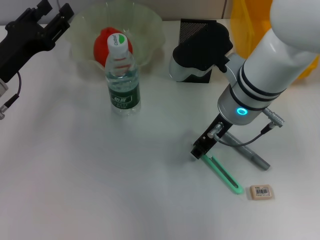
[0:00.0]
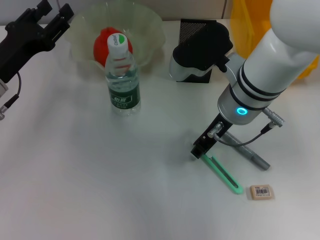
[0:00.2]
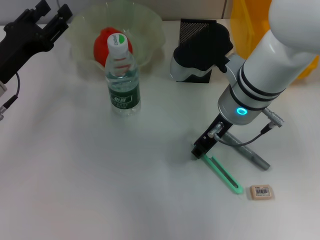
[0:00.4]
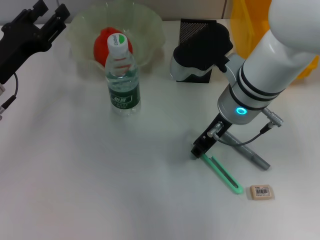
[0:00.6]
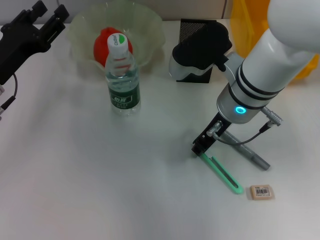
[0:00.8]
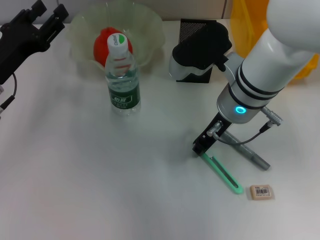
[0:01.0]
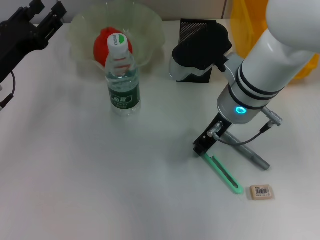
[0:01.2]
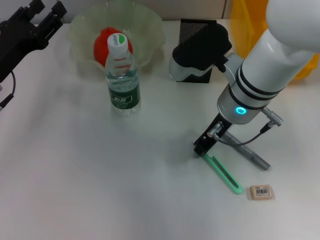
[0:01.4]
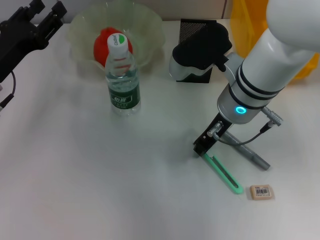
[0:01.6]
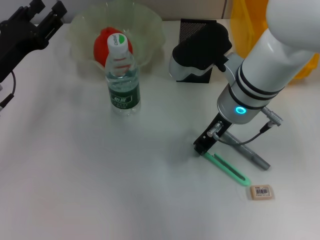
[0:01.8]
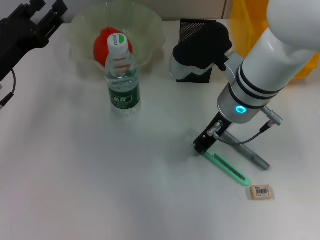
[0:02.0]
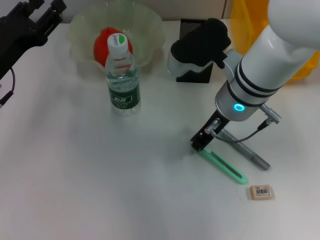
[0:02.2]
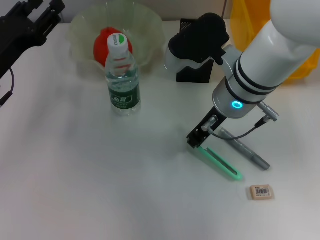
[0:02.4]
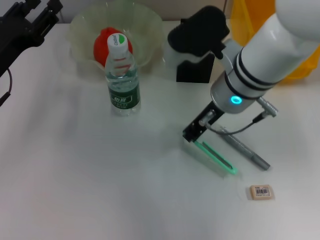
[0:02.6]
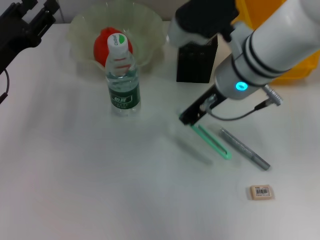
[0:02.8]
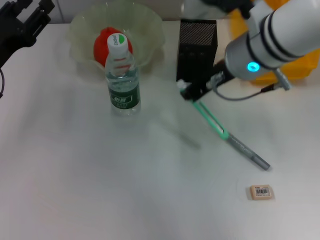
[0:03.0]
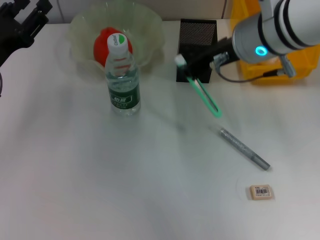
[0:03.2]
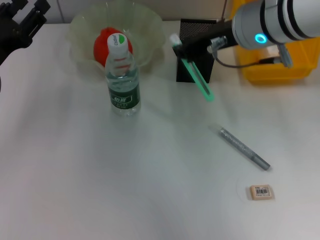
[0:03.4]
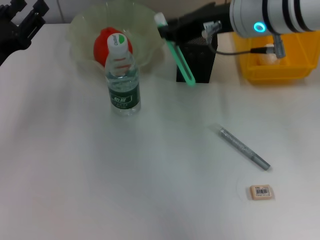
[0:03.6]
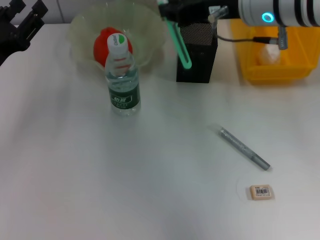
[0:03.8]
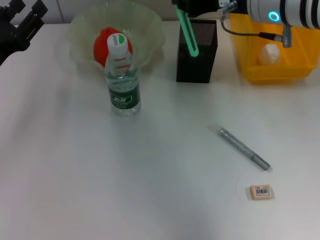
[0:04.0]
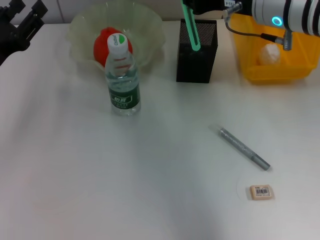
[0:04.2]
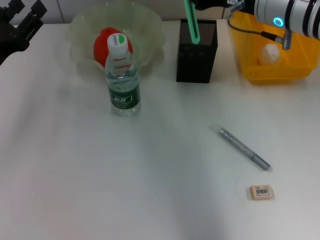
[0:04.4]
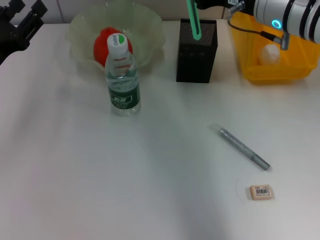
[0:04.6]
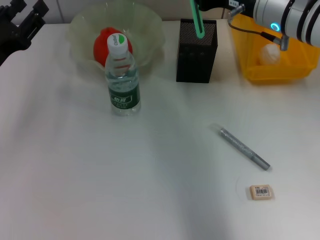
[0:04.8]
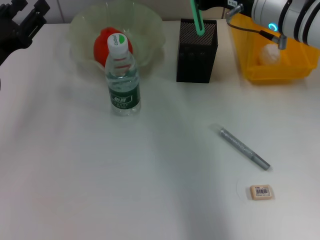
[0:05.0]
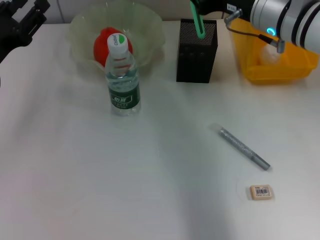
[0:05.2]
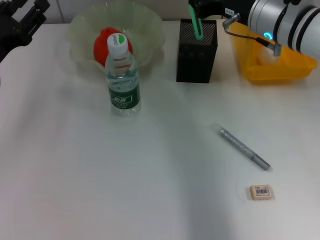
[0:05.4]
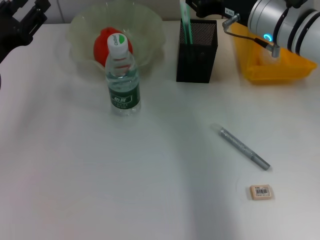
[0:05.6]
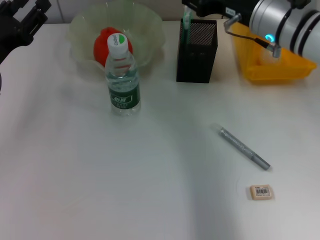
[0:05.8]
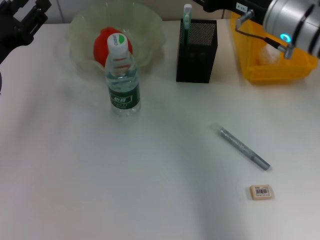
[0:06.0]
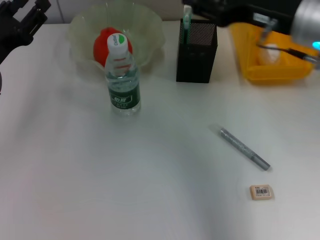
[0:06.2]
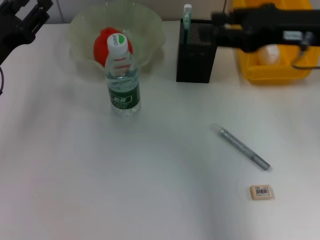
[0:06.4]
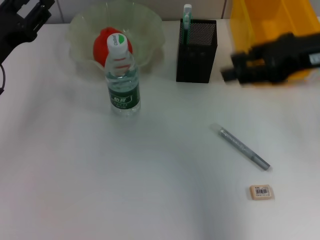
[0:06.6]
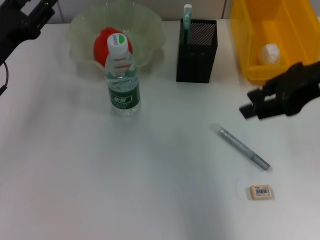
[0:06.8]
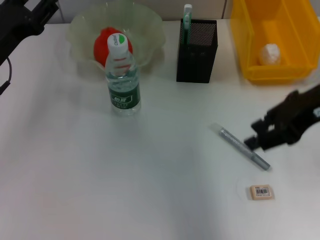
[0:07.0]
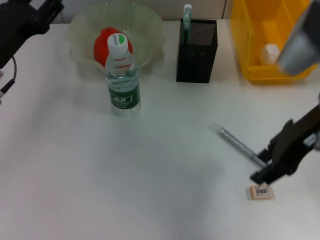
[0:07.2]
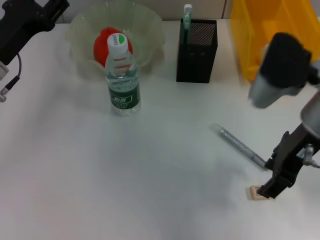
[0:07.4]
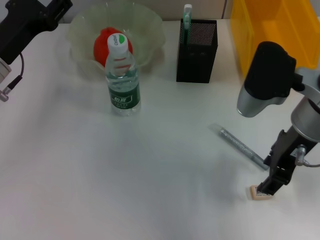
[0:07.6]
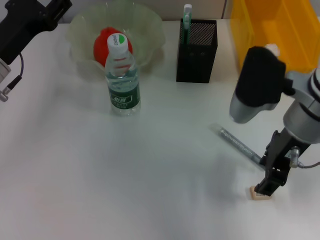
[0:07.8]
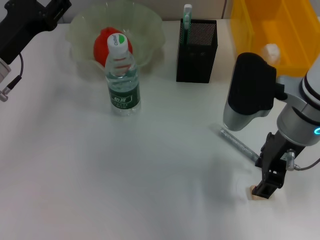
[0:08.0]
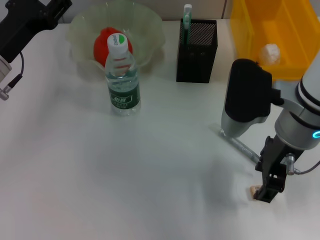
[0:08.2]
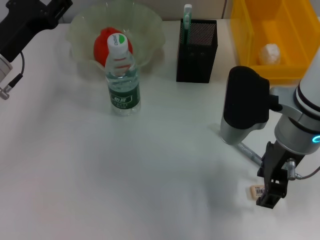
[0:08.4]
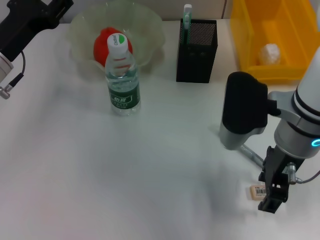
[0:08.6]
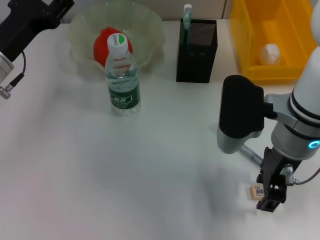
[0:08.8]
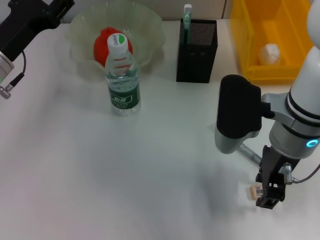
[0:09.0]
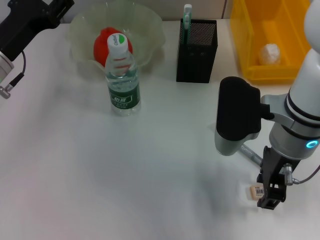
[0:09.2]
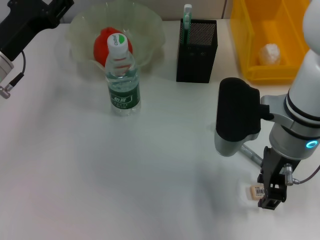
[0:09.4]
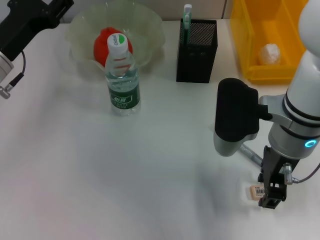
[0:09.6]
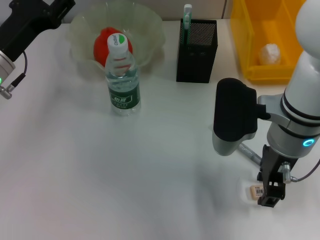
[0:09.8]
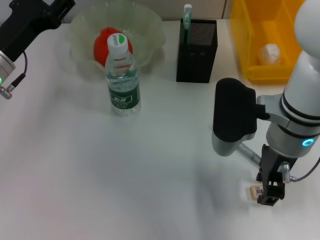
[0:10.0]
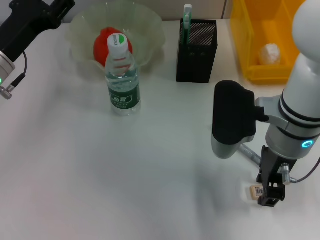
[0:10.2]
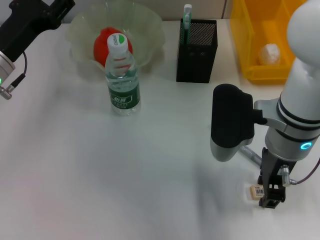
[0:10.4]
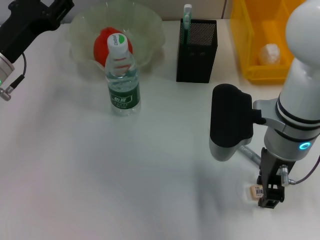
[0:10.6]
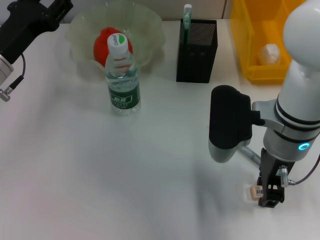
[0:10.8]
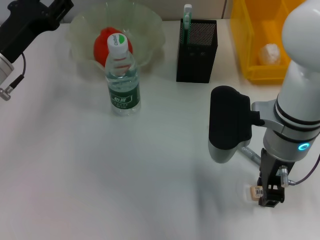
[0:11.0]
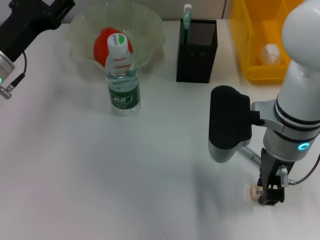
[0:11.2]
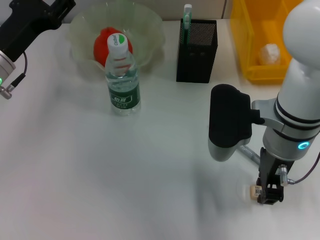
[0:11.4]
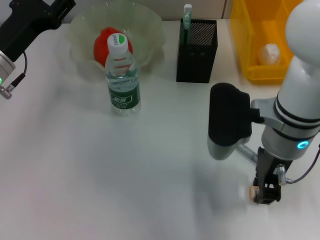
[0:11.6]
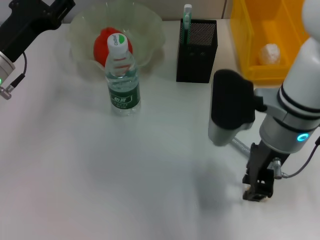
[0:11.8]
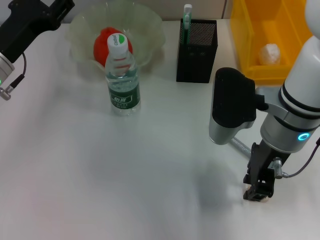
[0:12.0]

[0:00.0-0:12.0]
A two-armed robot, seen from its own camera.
Step, 0:00.0 to 0:02.2: Grab the blue utility knife with the right hand.
Step, 0:02.4 to 0:05.8: Place the blue utility knife into the pen holder with the right hand.
0:00.0 to 0:01.6: The right gripper closes up.
0:01.6 to 0:03.0: The right gripper heads upward, covering about 5 cm.
0:03.0 to 0:04.4: The right gripper travels to the right by roughly 5 cm.
0:04.4 to 0:06.0: The right gripper opens up.
0:06.0 to 0:07.6: The right gripper heads backward, covering approximately 5 cm.
0:07.6 to 0:09.0: The grippers make only small movements.
0:09.0 to 0:10.4: Both grippers stay put.
0:10.4 to 0:12.0: The grippers move only a little.

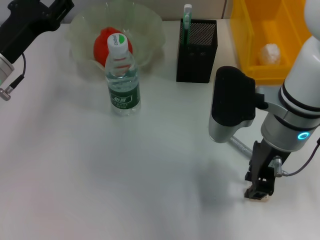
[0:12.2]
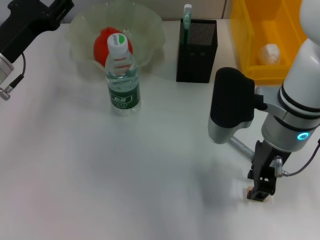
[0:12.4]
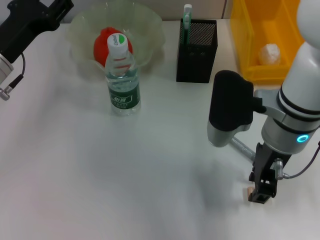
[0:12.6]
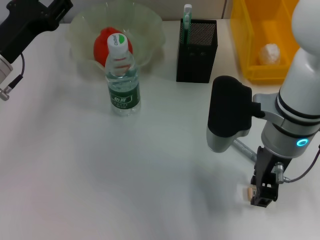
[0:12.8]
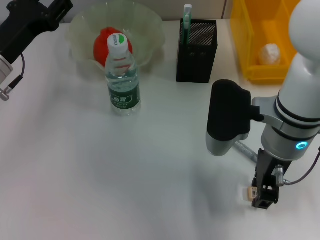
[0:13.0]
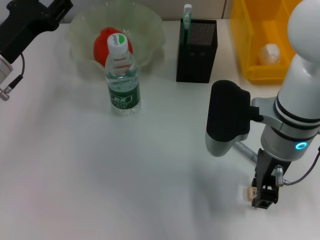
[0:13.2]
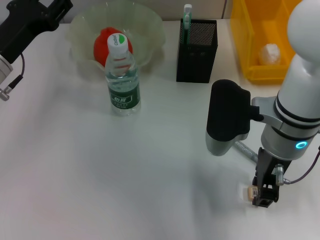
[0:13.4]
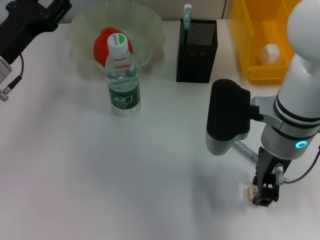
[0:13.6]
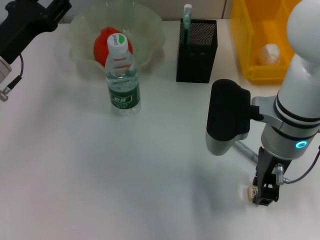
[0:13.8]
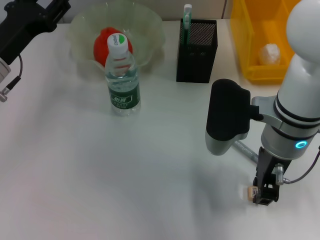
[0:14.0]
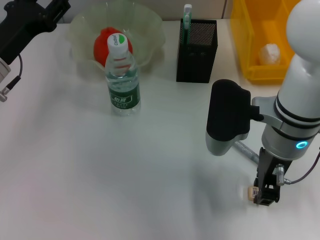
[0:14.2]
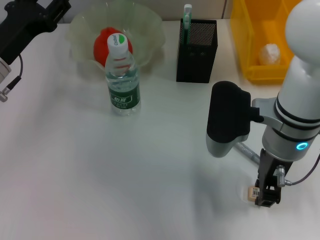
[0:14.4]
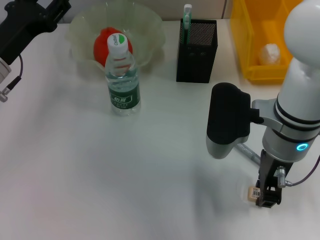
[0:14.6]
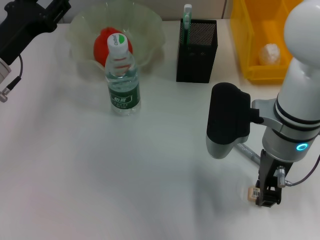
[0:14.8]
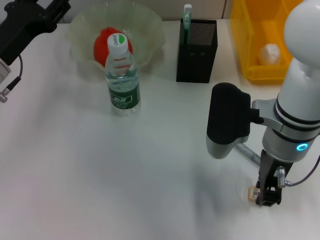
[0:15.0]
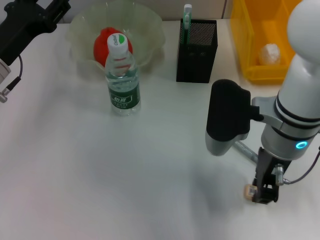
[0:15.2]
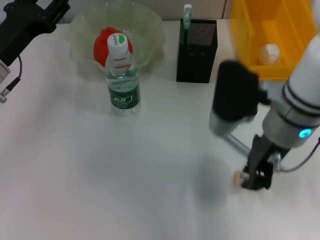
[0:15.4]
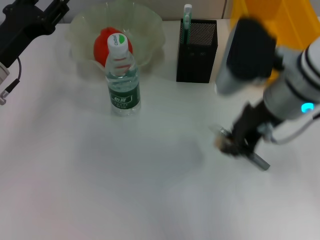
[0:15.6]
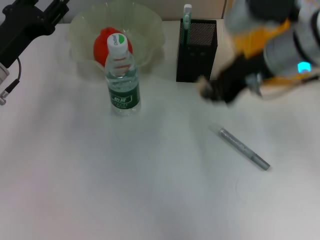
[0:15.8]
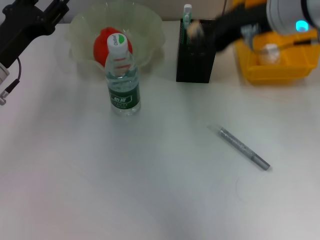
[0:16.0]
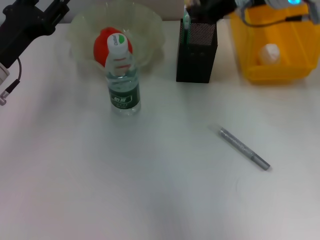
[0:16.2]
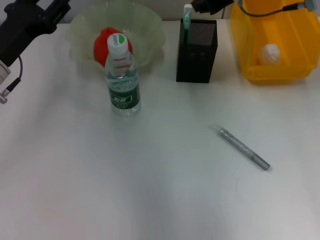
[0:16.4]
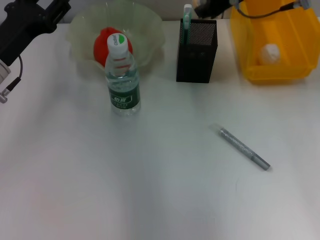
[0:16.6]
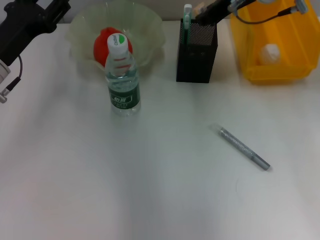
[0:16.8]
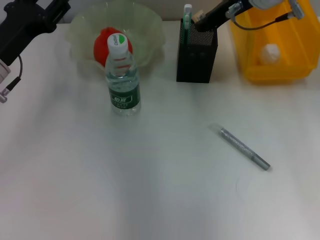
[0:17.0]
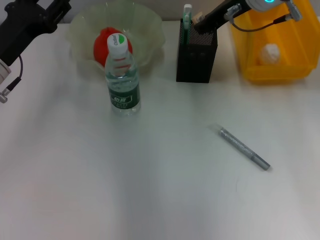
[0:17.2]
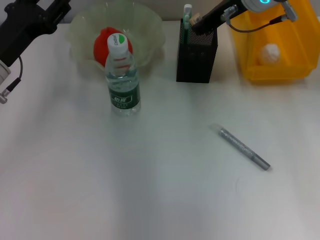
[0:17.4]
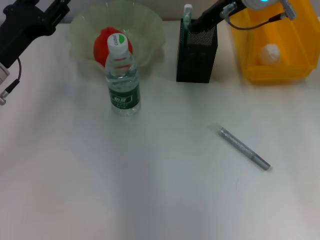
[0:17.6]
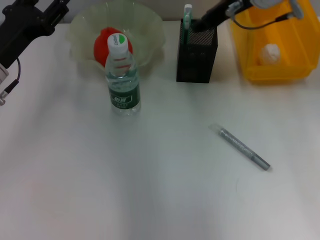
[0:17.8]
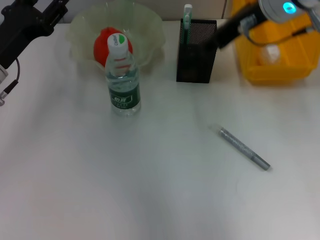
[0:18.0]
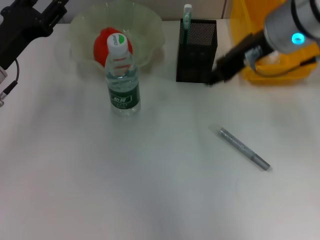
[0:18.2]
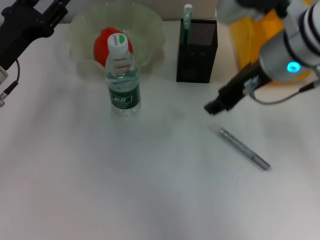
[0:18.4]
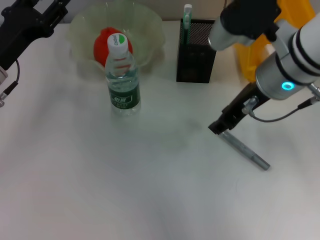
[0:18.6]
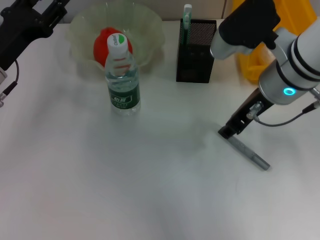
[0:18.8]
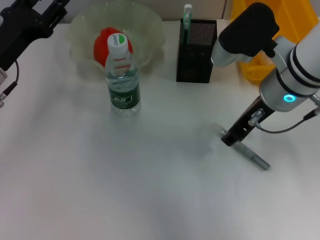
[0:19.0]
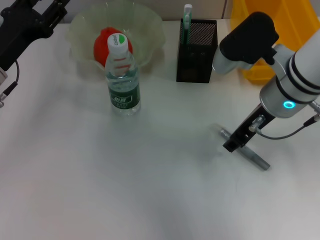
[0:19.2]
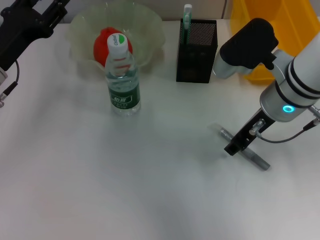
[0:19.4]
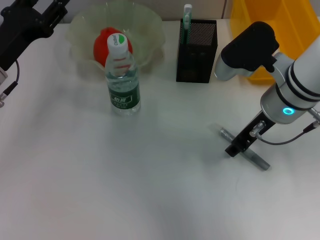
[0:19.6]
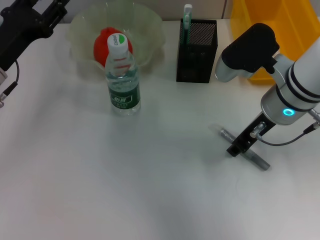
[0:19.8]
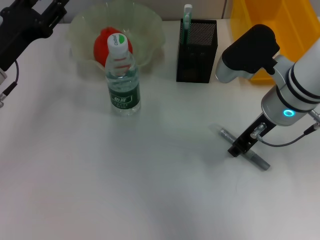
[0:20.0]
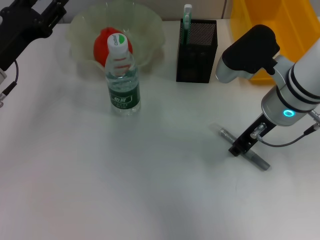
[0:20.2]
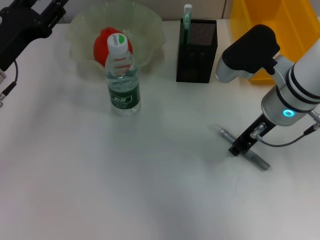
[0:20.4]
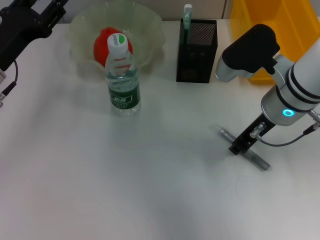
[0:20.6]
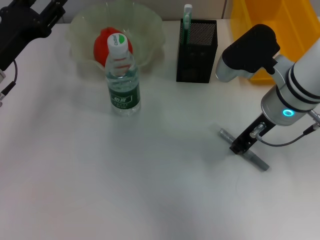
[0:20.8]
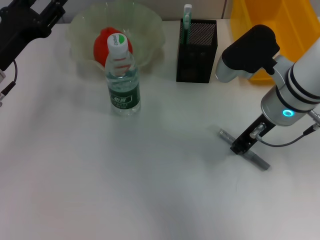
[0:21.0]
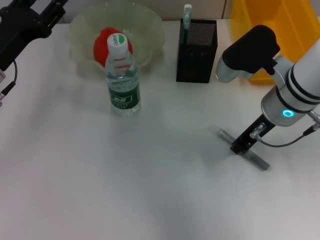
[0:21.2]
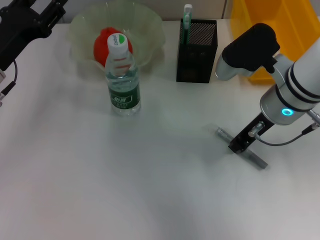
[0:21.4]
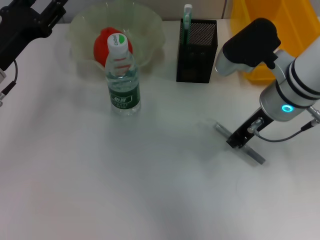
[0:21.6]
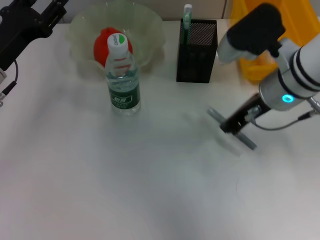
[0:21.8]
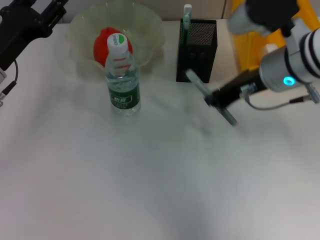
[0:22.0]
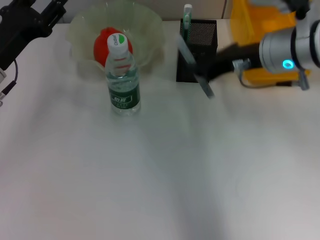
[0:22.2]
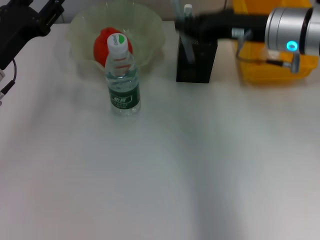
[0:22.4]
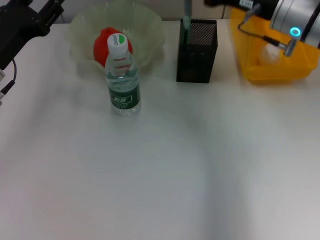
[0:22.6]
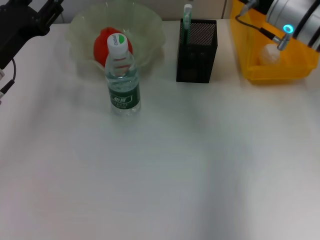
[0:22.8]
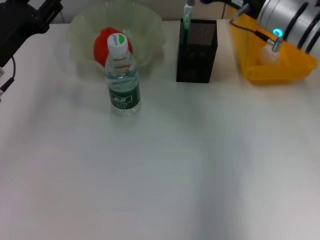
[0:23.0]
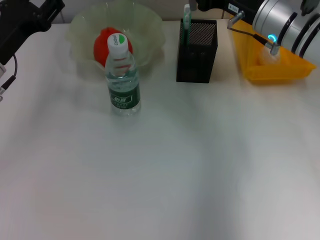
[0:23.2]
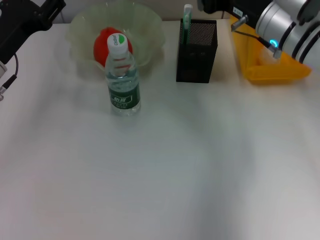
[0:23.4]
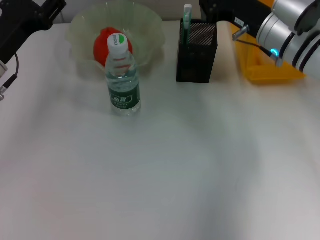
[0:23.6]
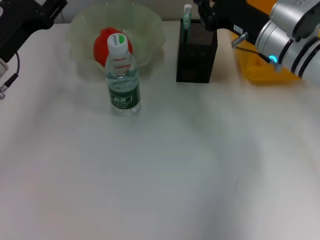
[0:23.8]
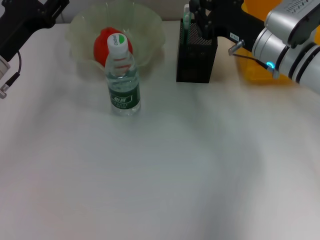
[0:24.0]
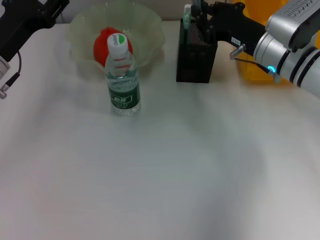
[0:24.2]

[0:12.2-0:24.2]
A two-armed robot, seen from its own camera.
Step, 0:12.2 to 0:15.0: Grab the eraser with the right hand.
Step, 0:15.2 to 0:17.6: Put the eraser into the pen holder with the right hand.
Step, 0:17.8 to 0:21.2: Grab the gray glue with the right hand.
0:12.2 to 0:13.8: Both grippers stay put.
0:13.8 to 0:15.2: Neither gripper changes place.
0:15.2 to 0:16.6: The right gripper shifts some 15 cm forward and upward.
0:16.6 to 0:18.2: The right gripper travels backward by approximately 10 cm, and opens its fingers.
0:18.2 to 0:19.8: The right gripper travels downward by roughly 10 cm.
0:19.8 to 0:21.2: The right gripper closes its fingers.
0:21.2 to 0:22.6: The right gripper heads forward, covering roughly 5 cm.
0:22.6 to 0:24.2: The right gripper shifts approximately 5 cm downward.
